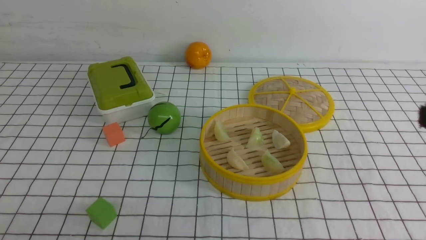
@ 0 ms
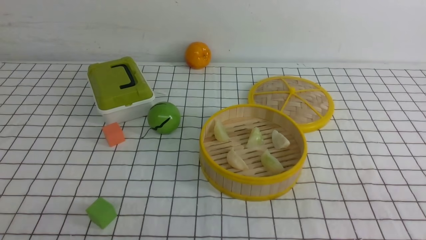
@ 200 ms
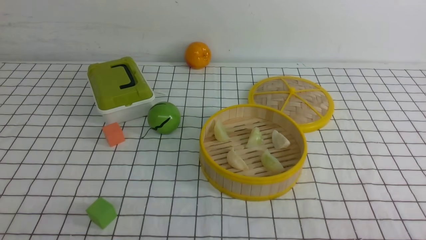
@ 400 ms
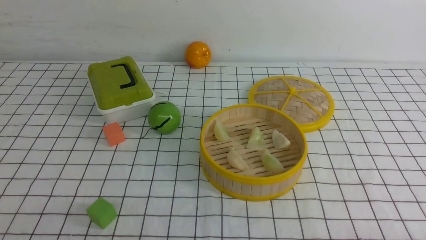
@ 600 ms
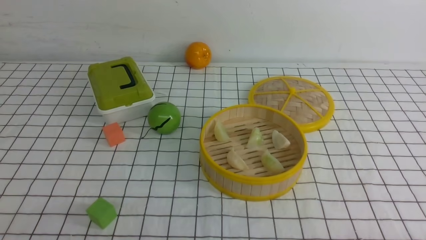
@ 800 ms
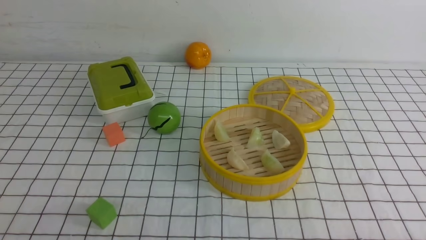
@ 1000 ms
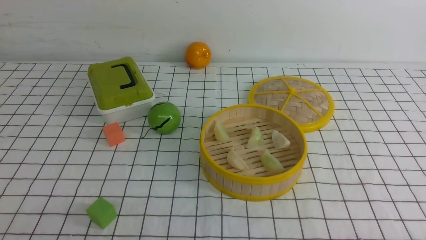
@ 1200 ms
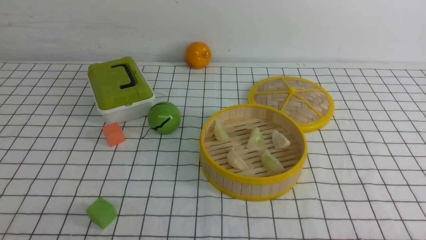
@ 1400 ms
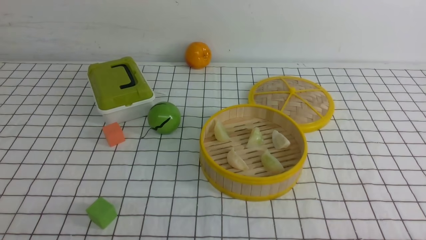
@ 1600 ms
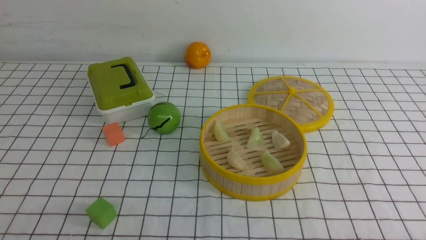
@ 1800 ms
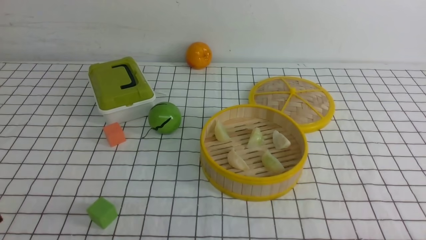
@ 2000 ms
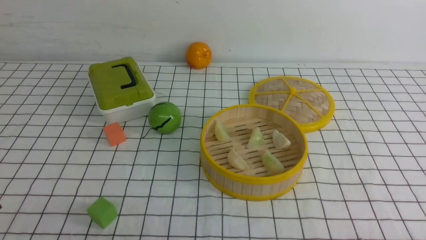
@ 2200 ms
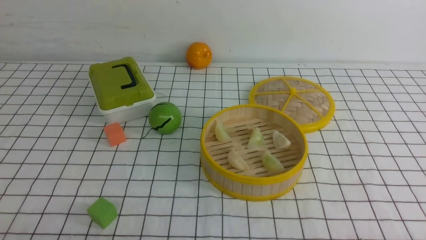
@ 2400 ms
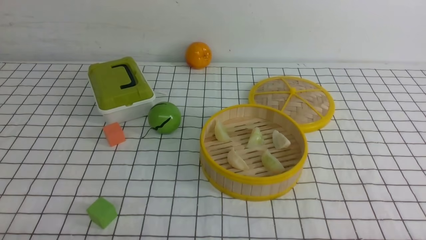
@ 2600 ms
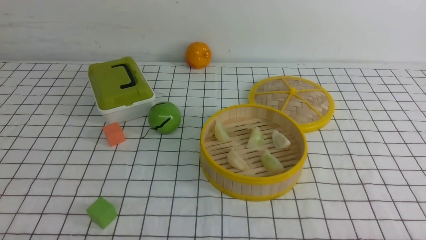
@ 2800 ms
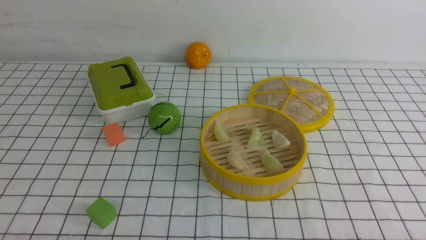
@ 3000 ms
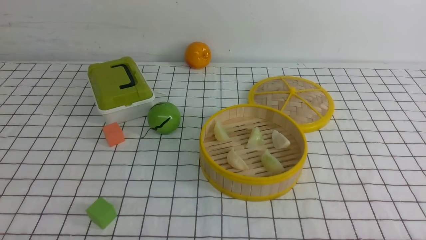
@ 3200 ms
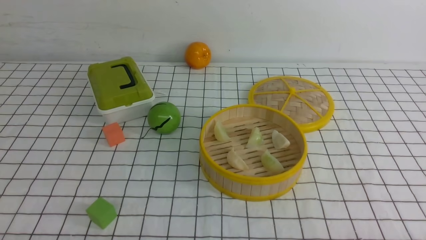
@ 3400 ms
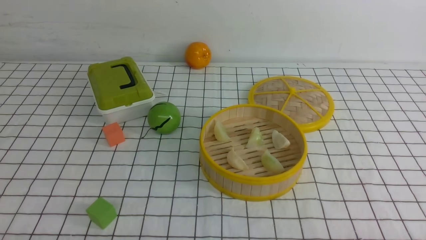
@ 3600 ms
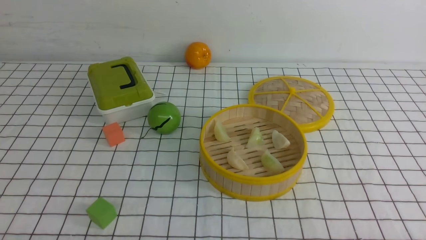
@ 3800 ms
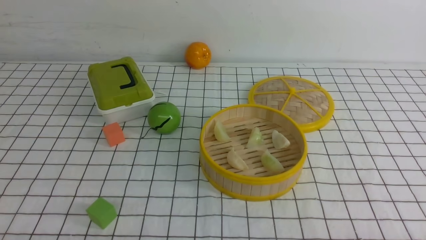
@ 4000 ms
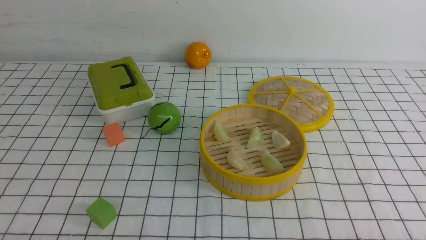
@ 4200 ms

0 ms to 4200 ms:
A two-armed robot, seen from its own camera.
Task of the whole recording: put the dumplings into the steamer on the table with the white tablecloth.
2800 ms to 4200 ms: Both grippers stay put.

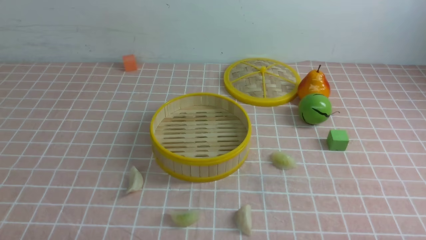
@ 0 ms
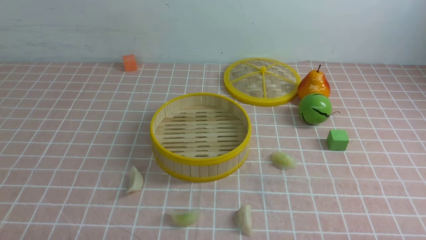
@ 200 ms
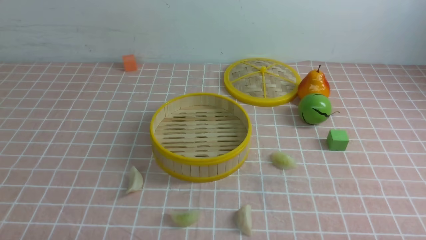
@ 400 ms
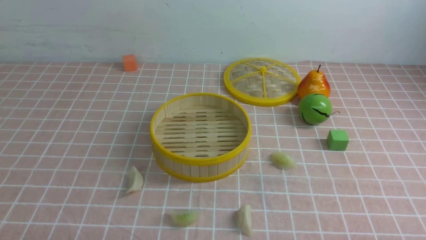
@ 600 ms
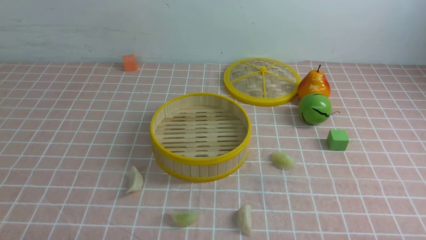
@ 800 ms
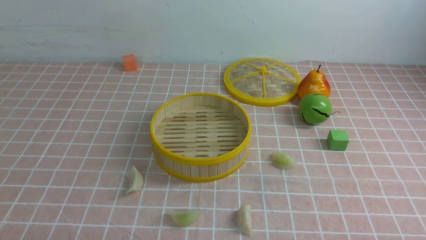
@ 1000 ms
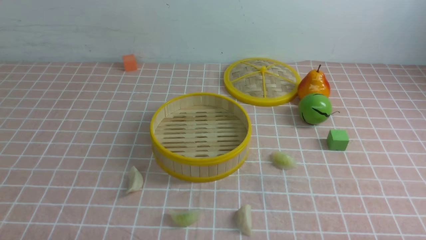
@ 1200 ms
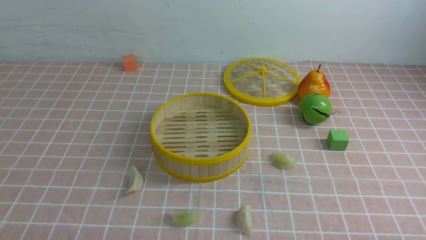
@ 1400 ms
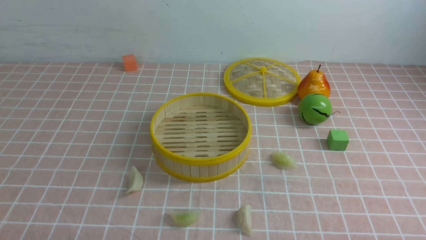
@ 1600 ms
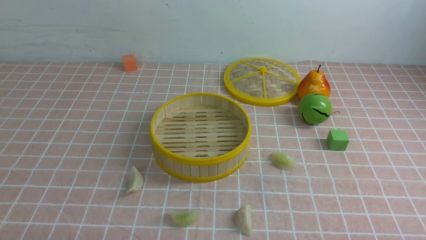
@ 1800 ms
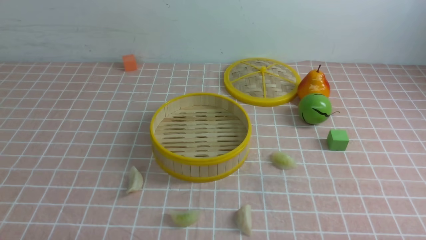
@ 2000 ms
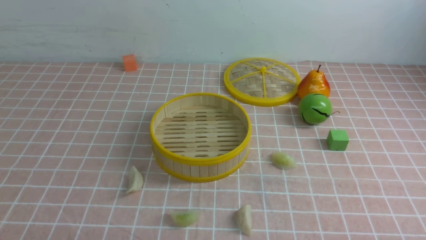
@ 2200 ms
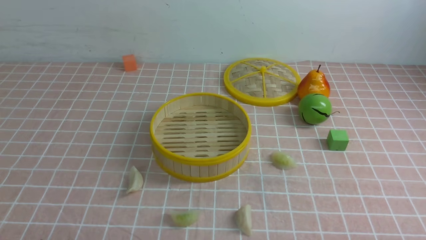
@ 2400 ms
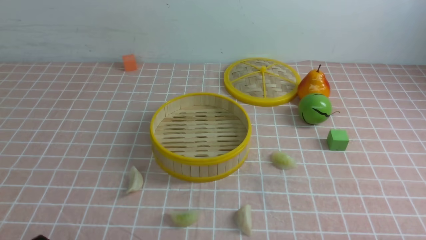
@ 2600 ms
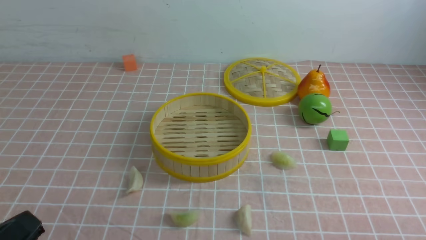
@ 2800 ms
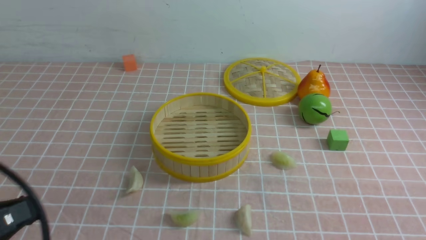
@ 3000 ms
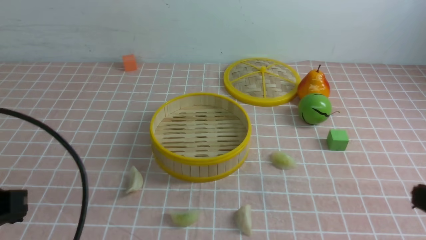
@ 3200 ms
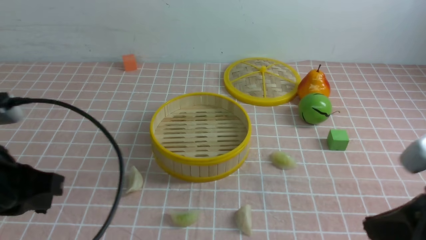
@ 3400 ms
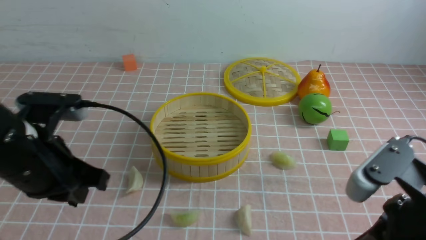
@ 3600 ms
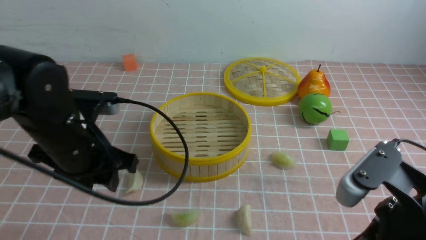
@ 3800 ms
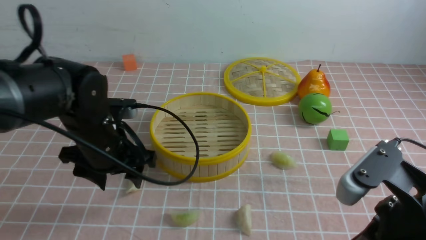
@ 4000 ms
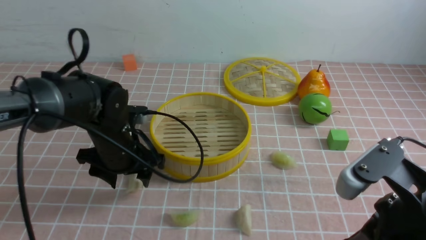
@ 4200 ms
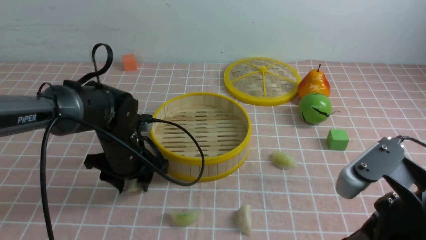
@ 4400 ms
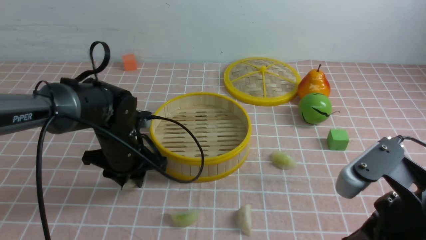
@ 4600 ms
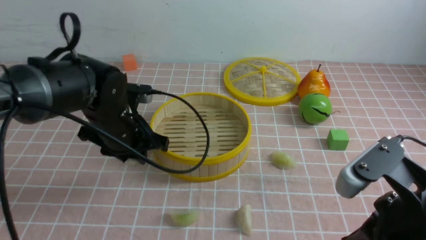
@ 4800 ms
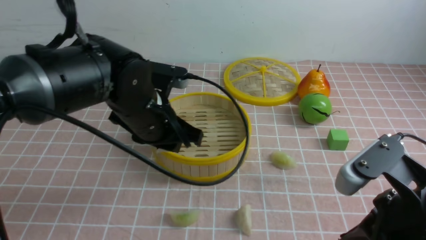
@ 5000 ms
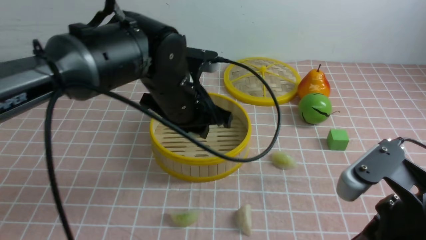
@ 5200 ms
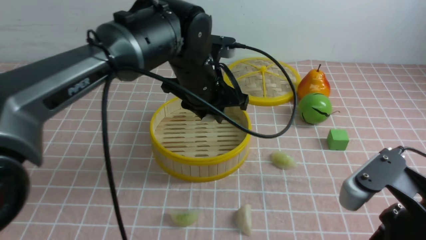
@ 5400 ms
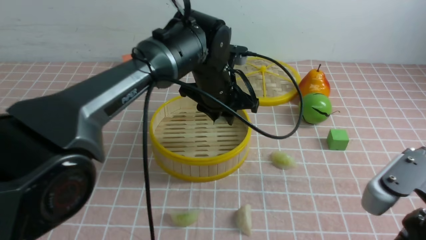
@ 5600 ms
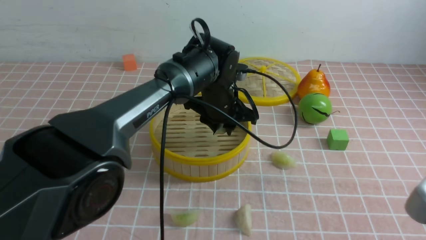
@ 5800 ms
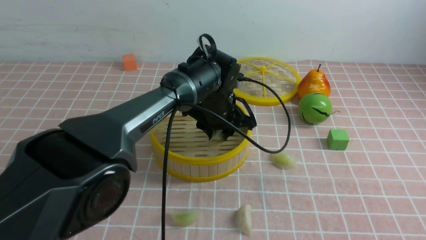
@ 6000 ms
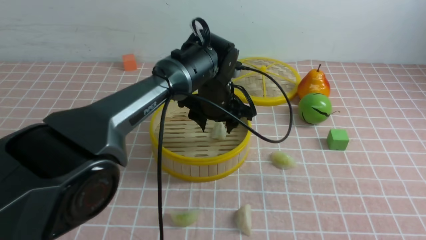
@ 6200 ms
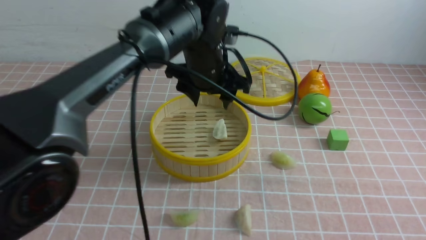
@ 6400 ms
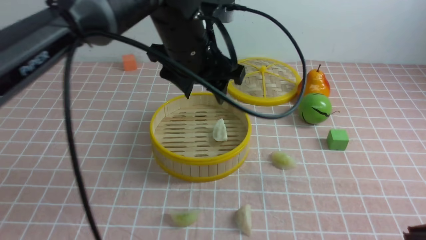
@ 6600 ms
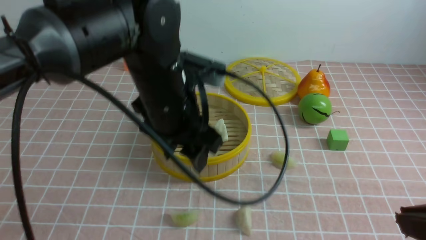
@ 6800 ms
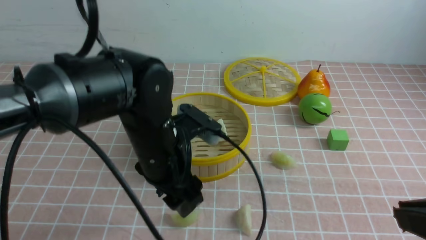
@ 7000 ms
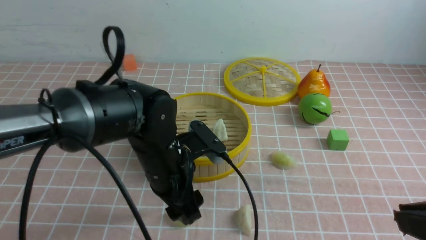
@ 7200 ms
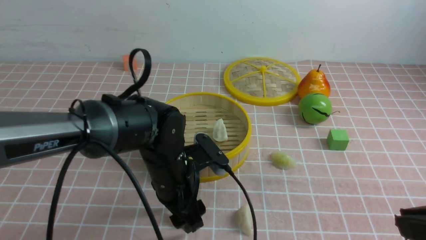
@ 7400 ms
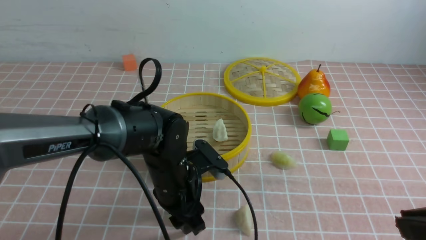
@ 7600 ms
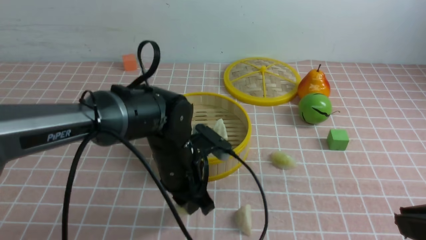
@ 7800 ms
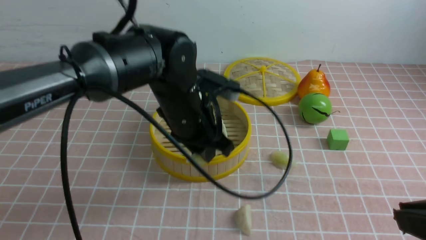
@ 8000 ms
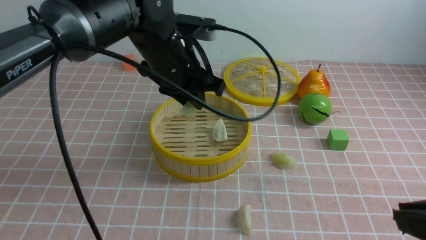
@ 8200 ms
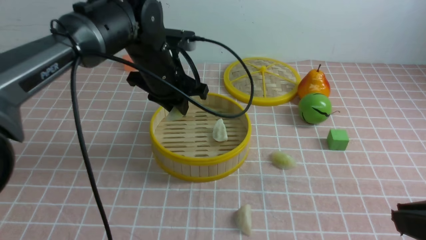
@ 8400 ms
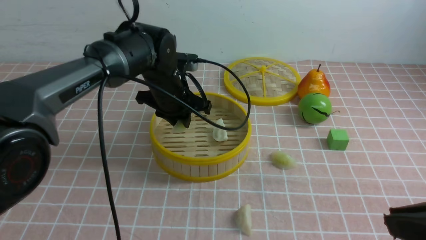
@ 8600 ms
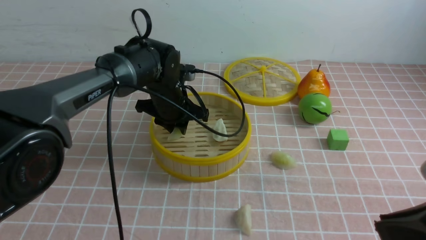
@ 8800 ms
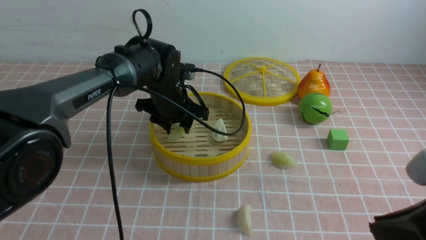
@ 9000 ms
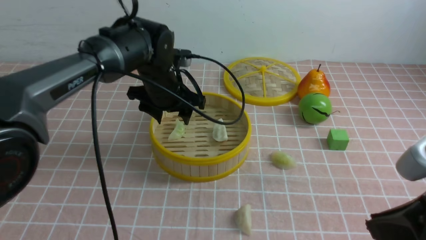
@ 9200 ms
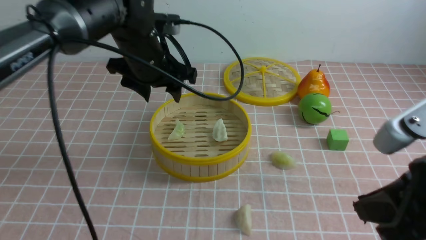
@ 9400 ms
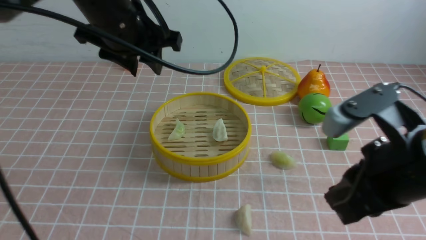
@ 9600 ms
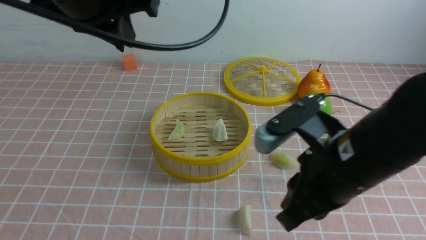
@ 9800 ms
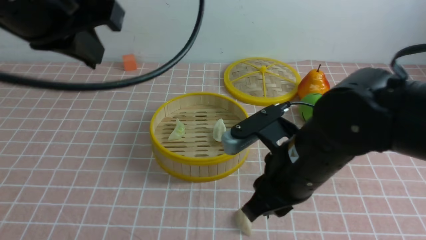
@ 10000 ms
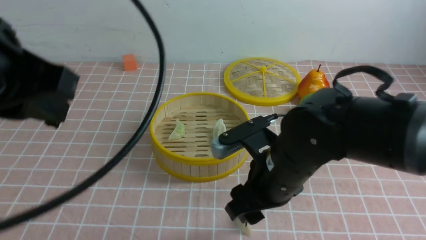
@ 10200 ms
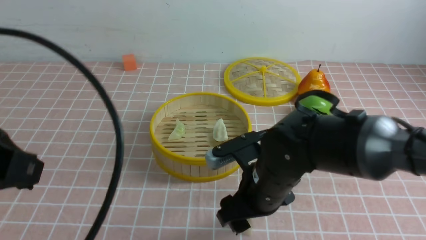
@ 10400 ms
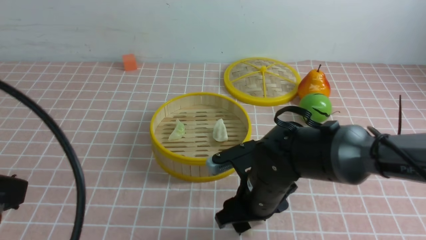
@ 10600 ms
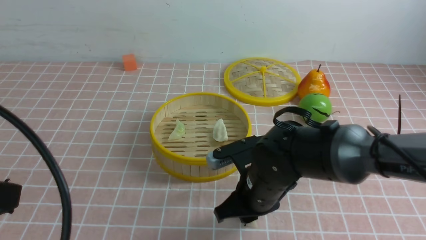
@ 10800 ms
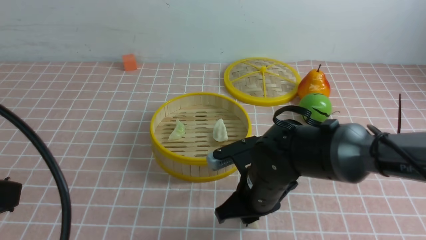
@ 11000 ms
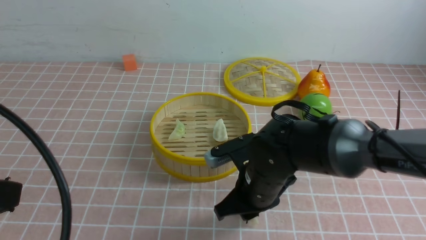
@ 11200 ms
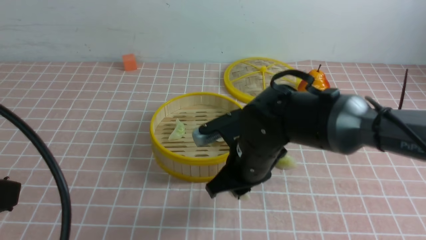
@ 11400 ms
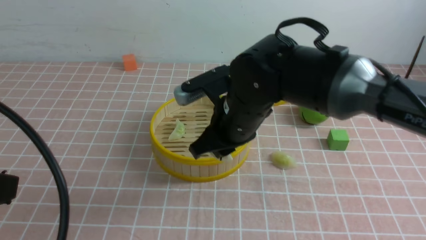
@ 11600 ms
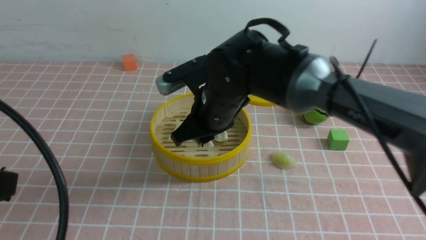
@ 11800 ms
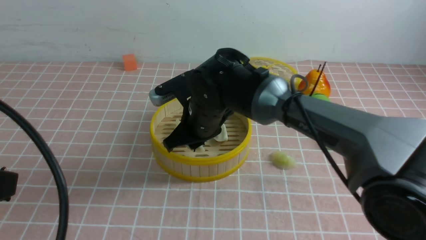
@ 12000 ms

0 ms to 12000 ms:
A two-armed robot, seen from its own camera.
Task of the whole recording: put the dumplings into the steamer on the table with the pink tablecloth.
Step, 0 ms to 4600 ms: use the left arm to grab a dumpling.
Step, 4800 ms to 6200 ms: use the left arm to put the dumpling into the steamer.
Step, 6400 ms to 7800 ms: use the left arm to grab a dumpling.
Step, 8000 ms to 9200 ms: use the left arm to put the dumpling into the steamer.
Step, 9400 ms to 11200 ms: use the right arm to grab a dumpling.
0 ms to 1600 ms: Both grippers stay about where they are.
1600 ms to 3000 ms: The left gripper moves upward, about 15 cm, and closes its fingers.
3000 ms to 4400 ms: The right gripper travels to the left and forward by about 10 cm. Meanwhile the left gripper moves forward and downward, roughly 30 cm, and opens.
4400 ms to 6000 ms: The left gripper is displaced to the right and forward by roughly 20 cm. The right gripper shifts roughly 5 cm backward.
6000 ms to 7600 ms: The left gripper is displaced backward and to the left by some 15 cm, and moves approximately 10 cm upward and comes back.
7600 ms to 9000 ms: The left gripper moves forward, about 15 cm.
9000 ms to 10400 ms: The right gripper heads to the left, forward and downward, covering approximately 25 cm, and opens up; the left gripper goes approximately 35 cm backward and upward, and closes its fingers.
10400 ms to 12000 ms: The right gripper is displaced forward and to the left by roughly 15 cm, and closes.
